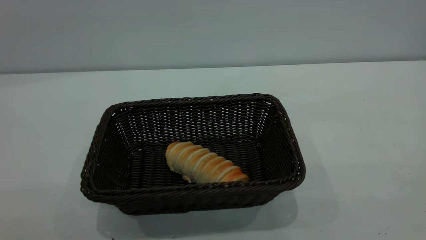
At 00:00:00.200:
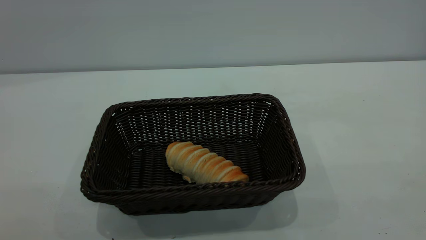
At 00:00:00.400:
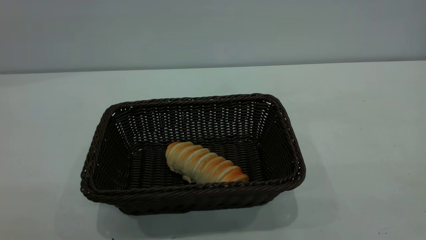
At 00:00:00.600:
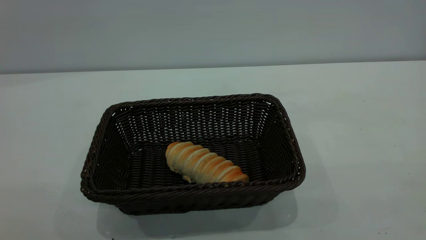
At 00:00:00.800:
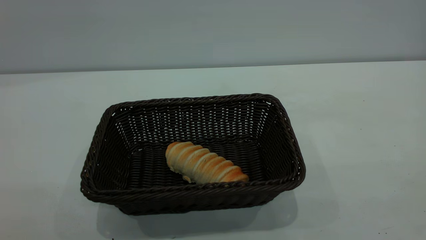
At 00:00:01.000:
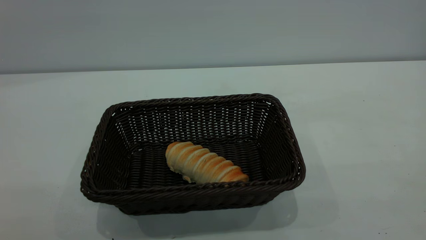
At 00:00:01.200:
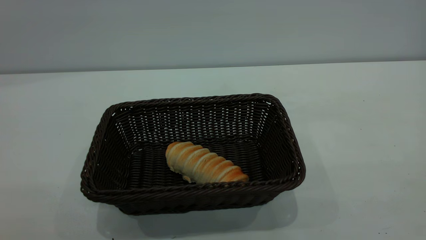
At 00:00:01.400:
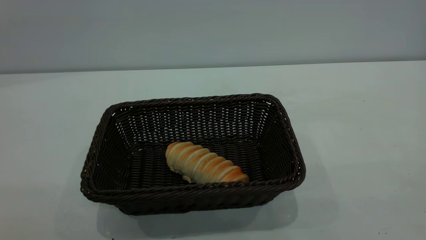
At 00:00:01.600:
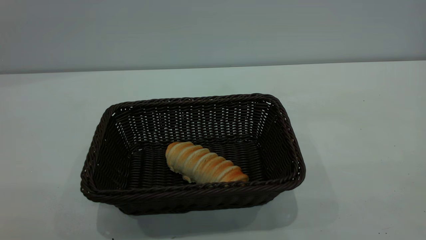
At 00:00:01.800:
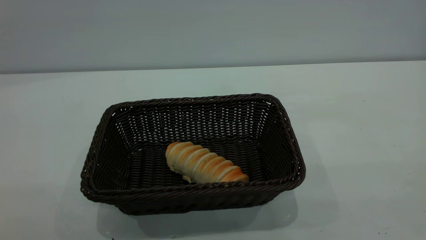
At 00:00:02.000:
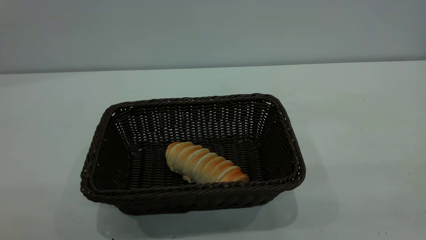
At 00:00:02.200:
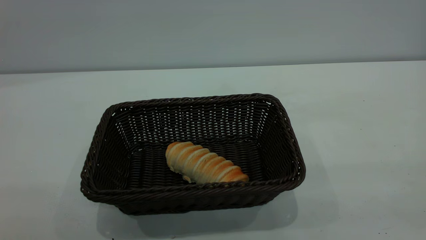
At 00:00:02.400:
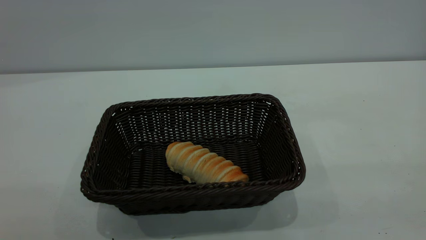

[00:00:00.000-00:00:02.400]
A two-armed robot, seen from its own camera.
Task of the whole recording: One hand grasps the black basket and places it in the middle of the table, while the other hand picks up the long bread and puts it into the black basket.
00:00:00.000 to 00:00:01.200: Both grippers stay about where they are.
